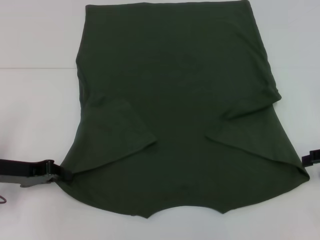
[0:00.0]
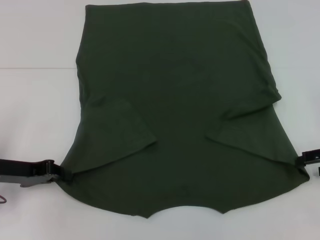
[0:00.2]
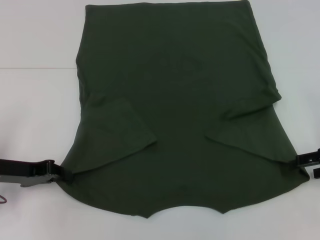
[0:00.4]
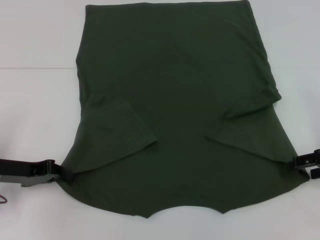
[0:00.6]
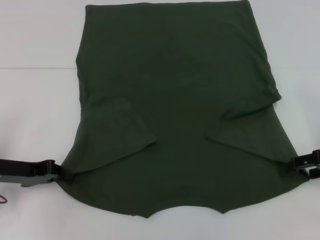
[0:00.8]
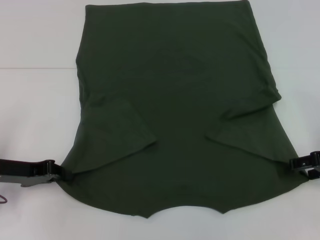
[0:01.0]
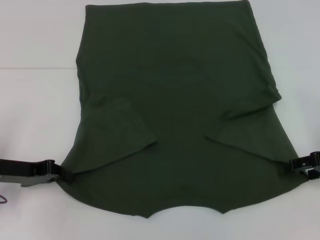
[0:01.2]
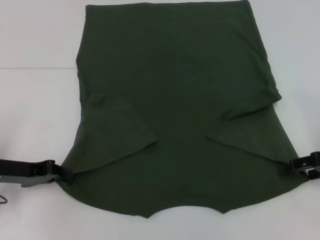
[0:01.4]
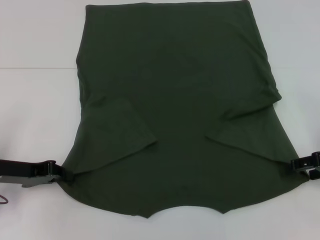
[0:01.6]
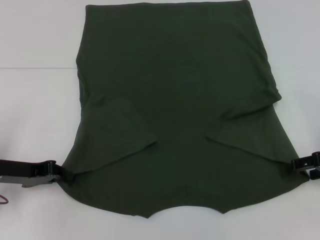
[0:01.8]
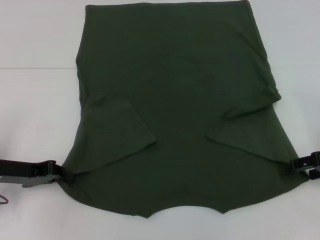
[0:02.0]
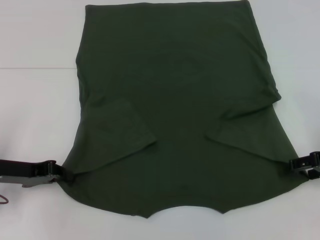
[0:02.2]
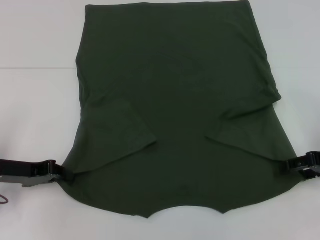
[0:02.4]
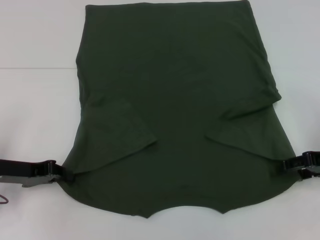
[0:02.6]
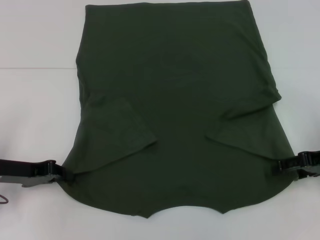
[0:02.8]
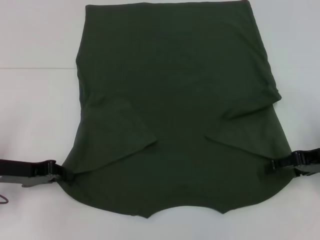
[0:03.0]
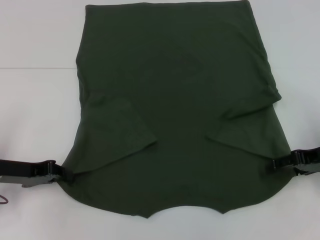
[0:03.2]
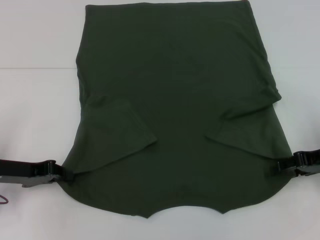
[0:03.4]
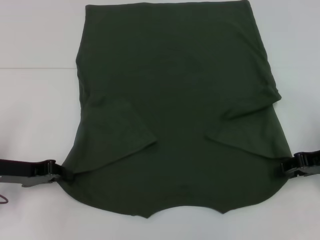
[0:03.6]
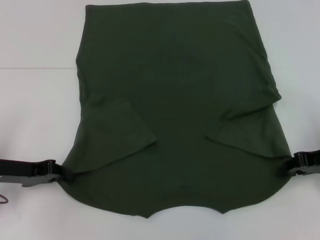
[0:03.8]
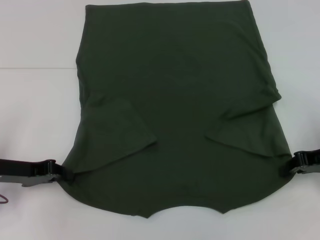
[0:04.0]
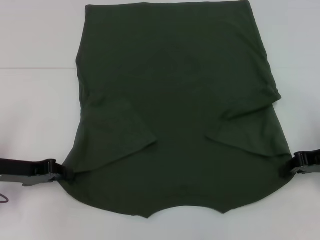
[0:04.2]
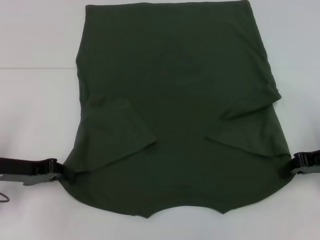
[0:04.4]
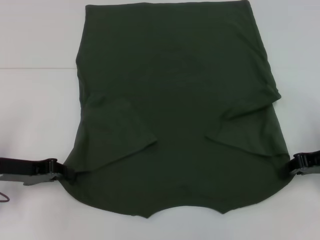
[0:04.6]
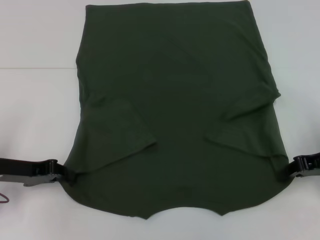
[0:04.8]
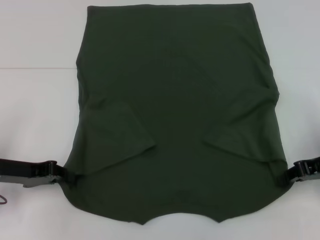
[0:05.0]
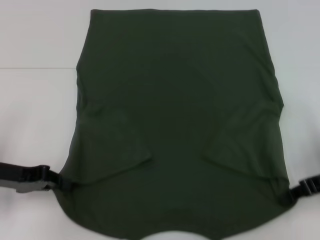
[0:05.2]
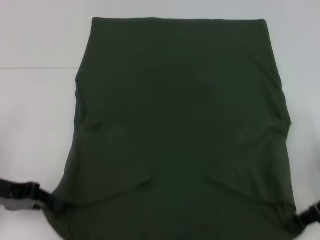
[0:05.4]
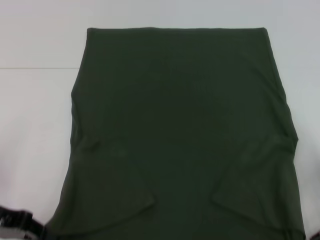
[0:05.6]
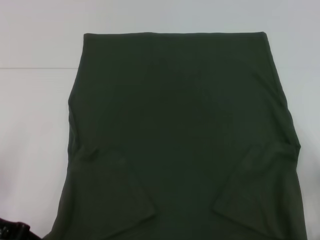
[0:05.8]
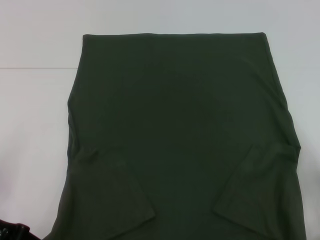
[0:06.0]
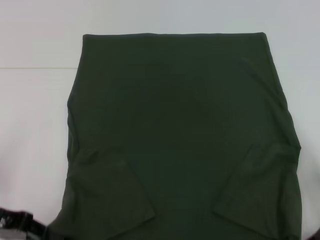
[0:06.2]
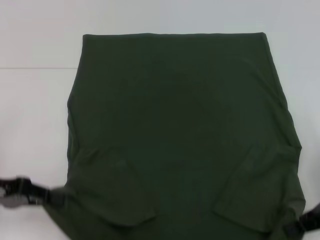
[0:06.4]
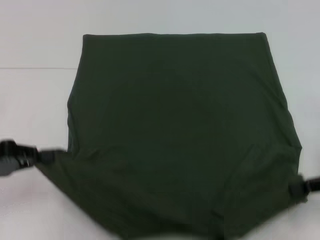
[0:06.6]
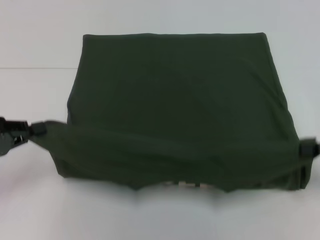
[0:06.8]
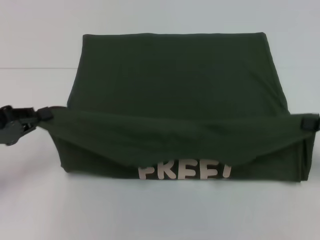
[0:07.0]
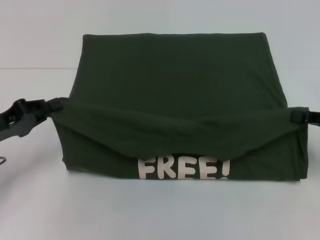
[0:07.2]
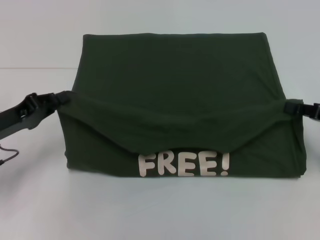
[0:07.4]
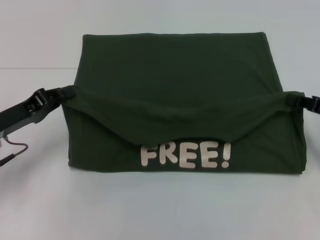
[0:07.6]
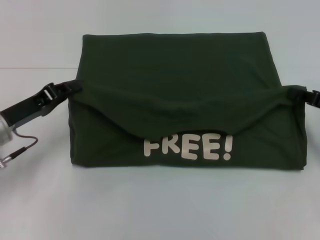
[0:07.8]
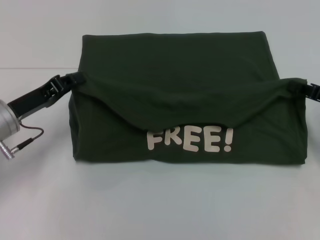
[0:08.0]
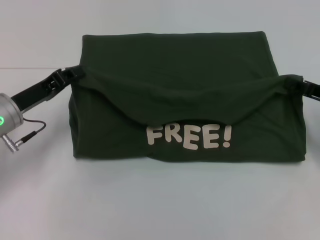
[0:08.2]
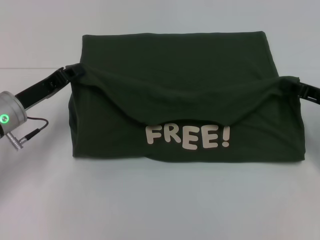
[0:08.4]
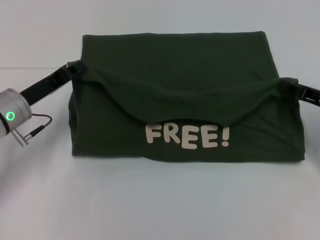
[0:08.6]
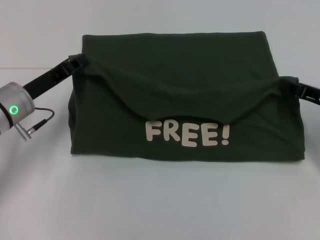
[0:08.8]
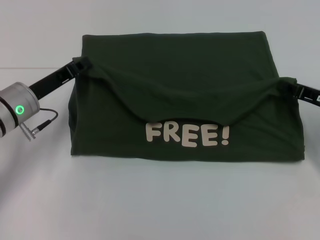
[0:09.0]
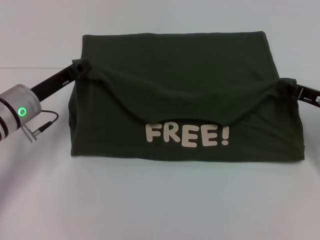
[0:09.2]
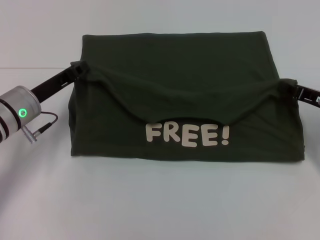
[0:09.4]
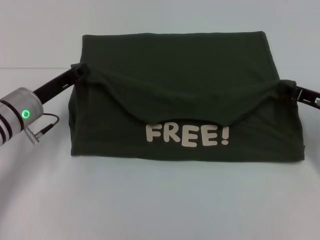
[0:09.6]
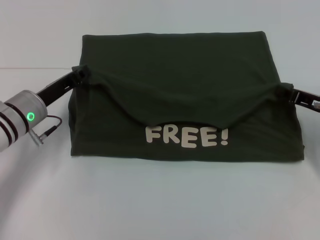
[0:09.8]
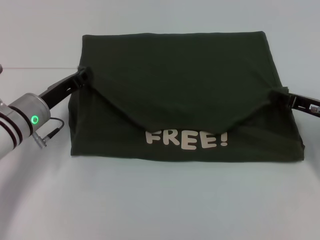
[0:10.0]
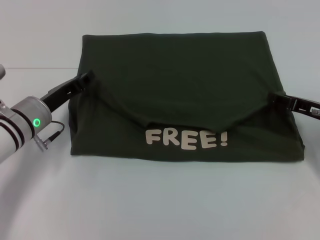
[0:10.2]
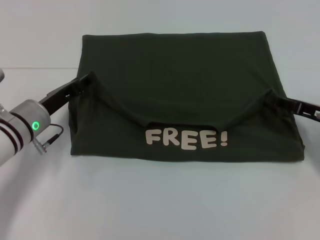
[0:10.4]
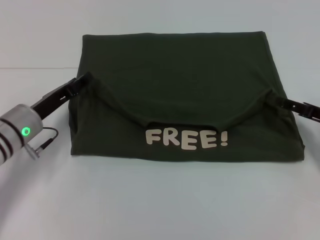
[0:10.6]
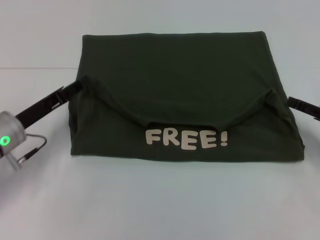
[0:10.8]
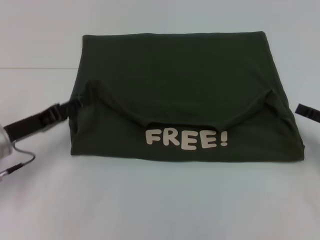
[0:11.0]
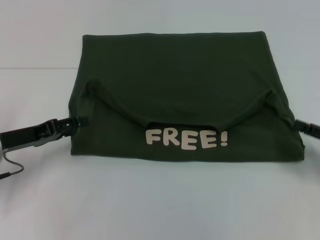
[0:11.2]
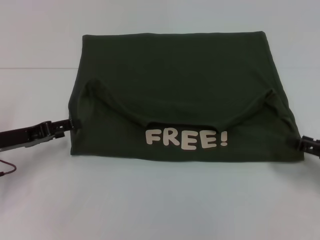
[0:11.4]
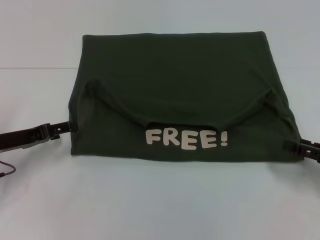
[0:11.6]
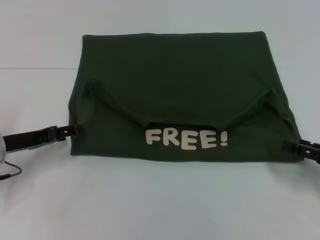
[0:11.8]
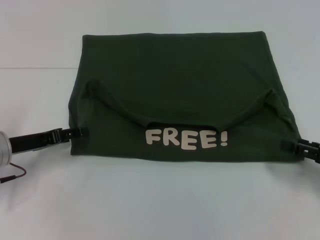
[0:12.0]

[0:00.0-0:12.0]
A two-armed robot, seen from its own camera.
Step, 0:00.0 to 0:04.8: Grab the bottom right corner with your right hand.
Step, 0:05.0 to 0:10.6: Fold the clothes with your left hand.
Step, 0:05.0 to 0:10.6: Fold the clothes with your right hand.
0:01.6 to 0:03.0: The grippers stay close to where they were, moving slightly.
0:03.0 to 0:04.4: The right gripper closes.
0:04.4 to 0:06.0: Both grippers travel together backward, approximately 5 cm.
0:06.0 to 0:07.6: The two grippers go about 5 cm forward.
0:07.6 to 0:09.0: The left gripper moves forward, some 5 cm.
0:09.0 to 0:10.4: The right gripper opens up.
0:10.4 to 0:12.0: The left gripper travels to the left by about 5 cm, and opens up; the right gripper heads backward, covering roughly 10 cm, and opens.

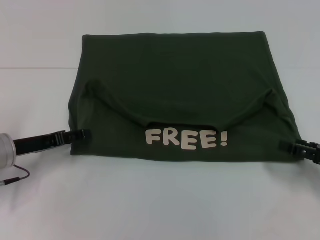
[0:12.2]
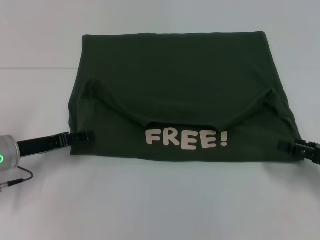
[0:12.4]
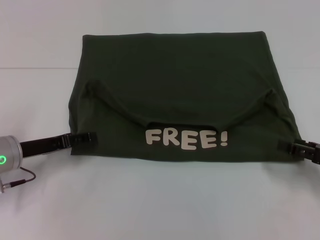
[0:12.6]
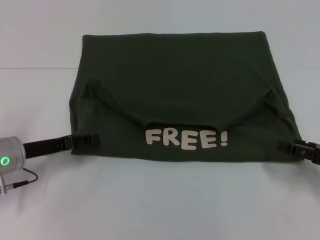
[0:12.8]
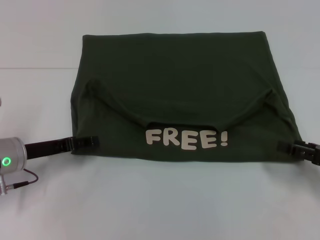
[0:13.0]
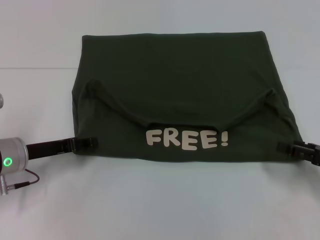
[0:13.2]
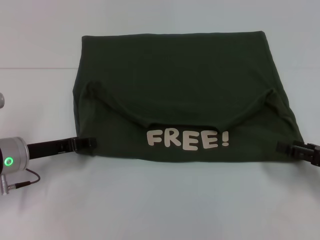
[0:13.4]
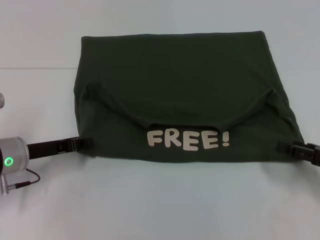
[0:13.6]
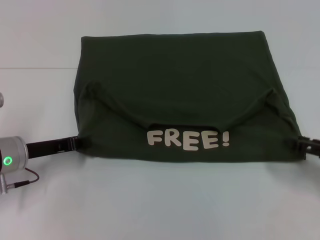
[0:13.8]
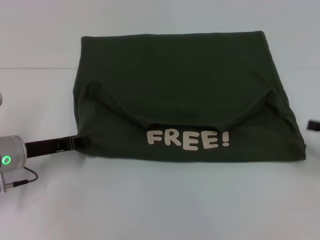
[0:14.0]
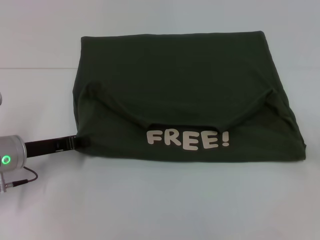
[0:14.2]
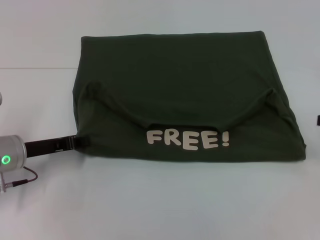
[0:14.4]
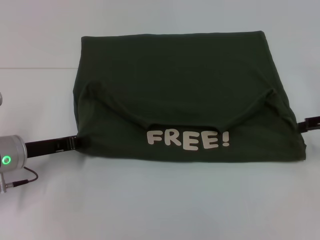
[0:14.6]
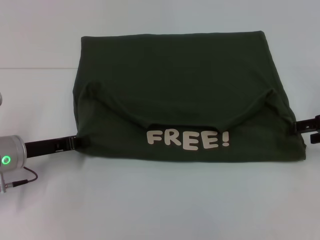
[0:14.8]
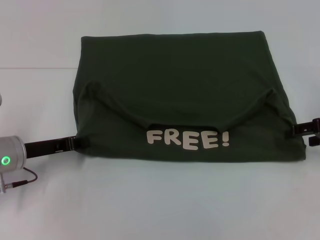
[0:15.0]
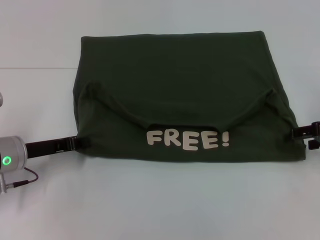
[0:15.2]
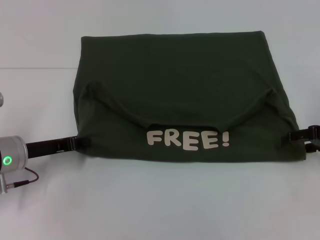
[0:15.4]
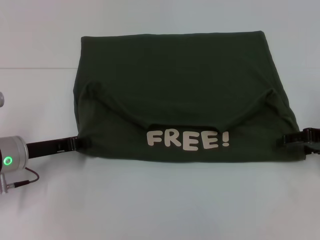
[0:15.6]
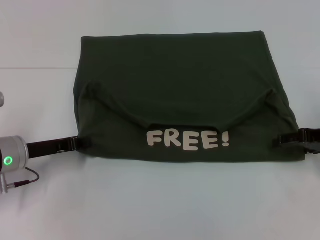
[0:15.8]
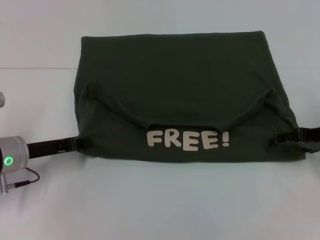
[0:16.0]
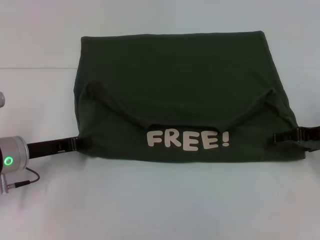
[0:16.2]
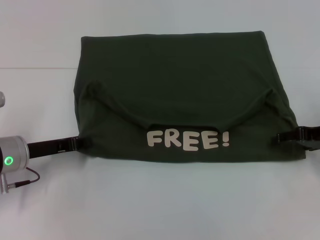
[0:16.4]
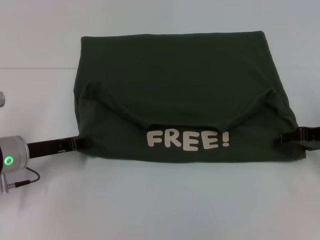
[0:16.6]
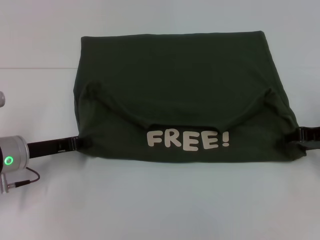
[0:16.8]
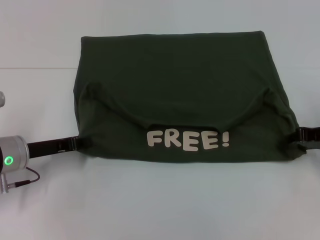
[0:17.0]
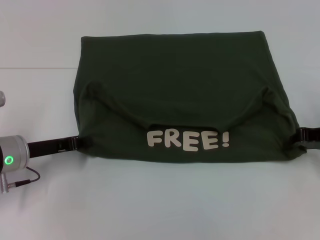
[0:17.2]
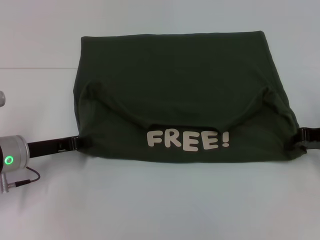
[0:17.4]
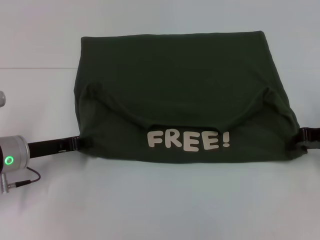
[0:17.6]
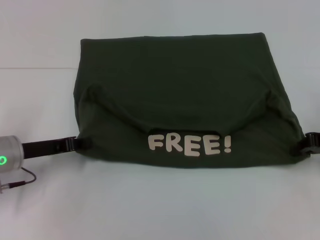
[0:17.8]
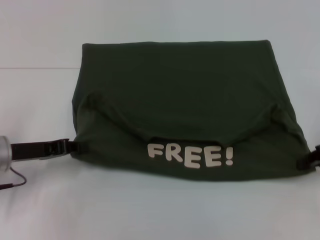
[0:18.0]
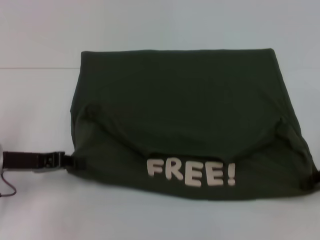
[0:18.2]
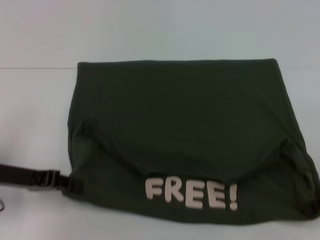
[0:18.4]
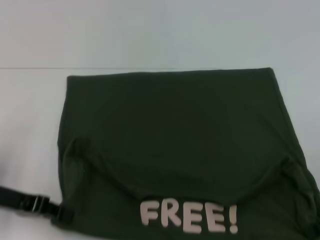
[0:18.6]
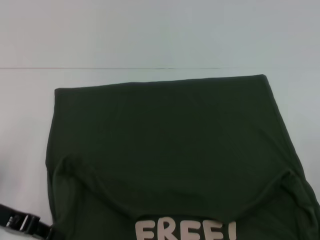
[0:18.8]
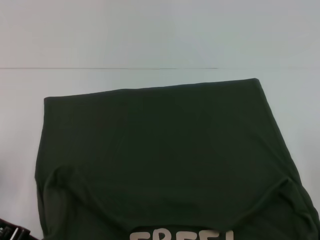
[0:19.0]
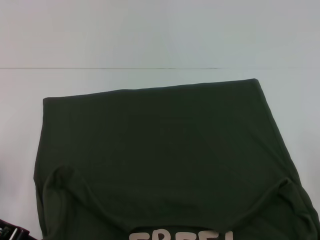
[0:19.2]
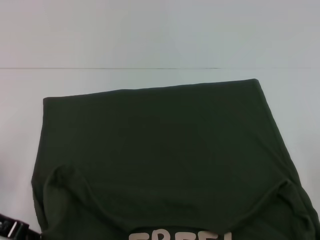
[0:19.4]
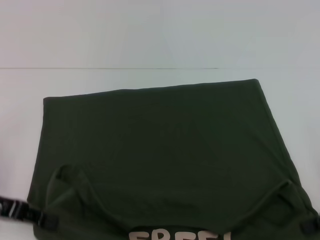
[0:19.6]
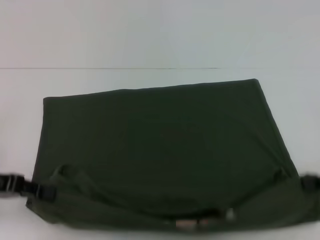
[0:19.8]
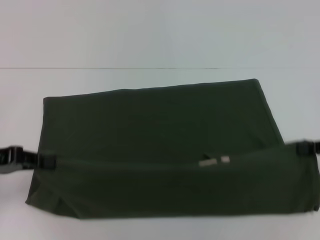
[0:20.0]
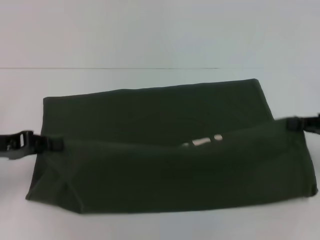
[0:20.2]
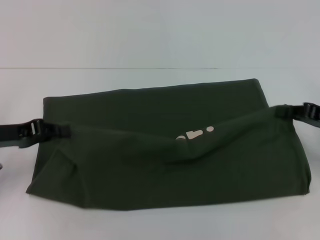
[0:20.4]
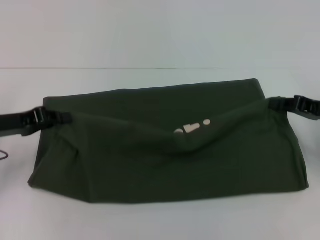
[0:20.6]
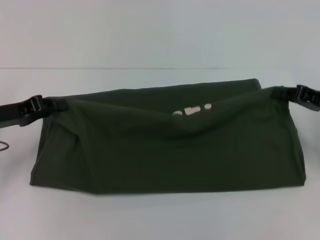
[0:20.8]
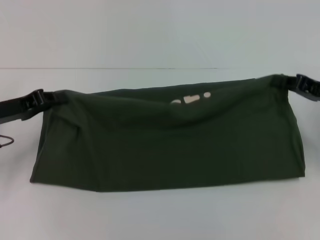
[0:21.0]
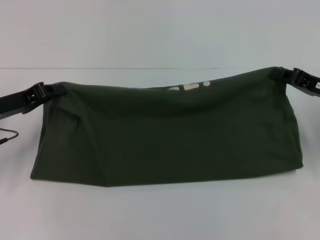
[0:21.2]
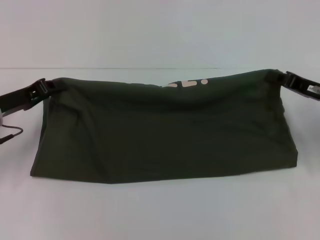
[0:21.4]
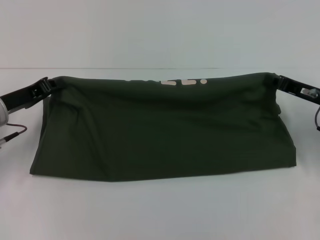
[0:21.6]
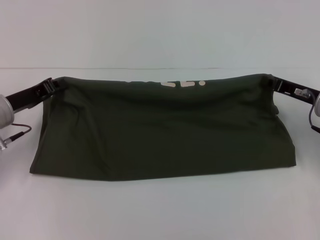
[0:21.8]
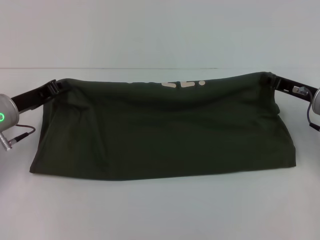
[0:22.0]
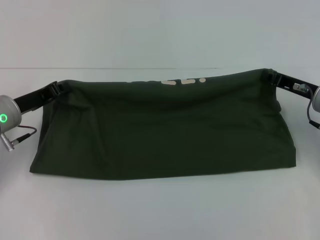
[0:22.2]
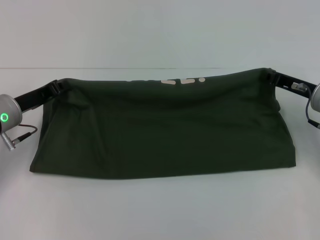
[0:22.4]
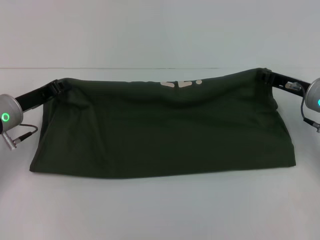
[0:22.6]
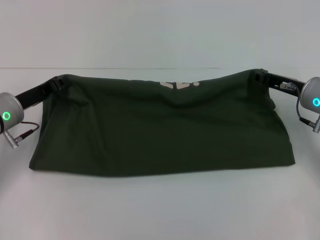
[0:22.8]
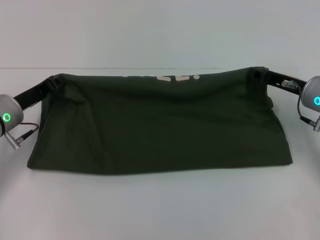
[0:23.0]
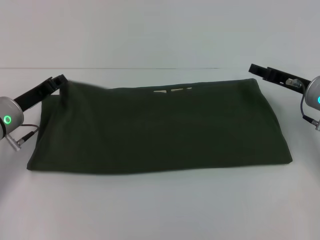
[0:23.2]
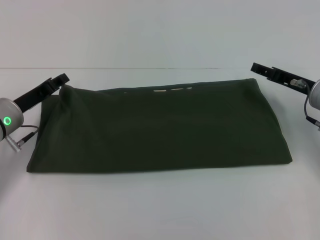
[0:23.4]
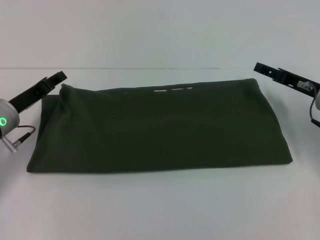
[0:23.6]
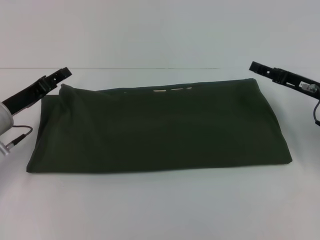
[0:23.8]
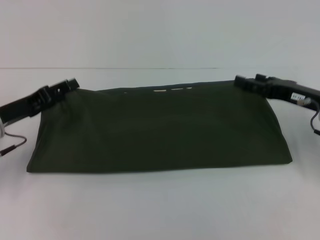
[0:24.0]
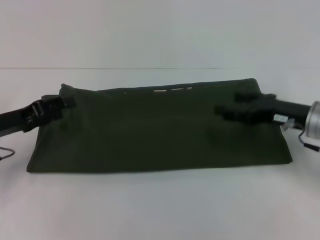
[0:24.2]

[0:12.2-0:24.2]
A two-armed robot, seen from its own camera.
Step, 0:12.2 to 0:19.2: Pull the clothes with your left hand.
Step, 0:12.2 to 0:19.2: Pull the clothes with your right hand.
Step, 0:19.4 to 0:23.2: Fold the clothes with your right hand.
0:12.2 to 0:13.8: The left gripper closes its fingers.
0:13.8 to 0:15.2: The right gripper shifts roughly 10 cm forward and upward.
0:15.2 to 0:16.6: The grippers stay close to where they were, moving slightly.
0:16.6 to 0:18.2: The right gripper ends up roughly 5 cm from where it was, and closes its fingers.
0:18.2 to 0:19.8: The left gripper moves approximately 5 cm.
0:19.8 to 0:21.2: The left gripper is displaced forward by about 5 cm, while the right gripper heads forward and to the left, covering approximately 10 cm.
0:21.2 to 0:22.6: The right gripper moves some 5 cm.
0:22.6 to 0:24.2: The left gripper ends up about 5 cm from where it was, and opens its fingers, while the right gripper opens up.
